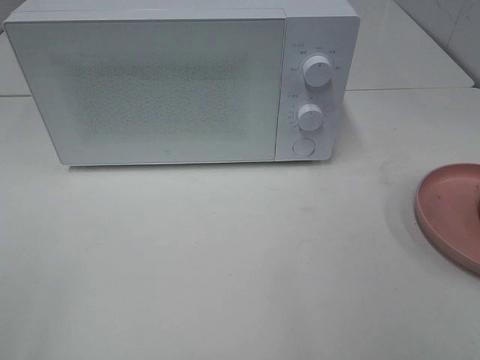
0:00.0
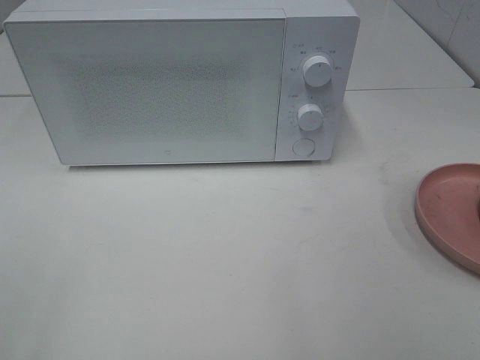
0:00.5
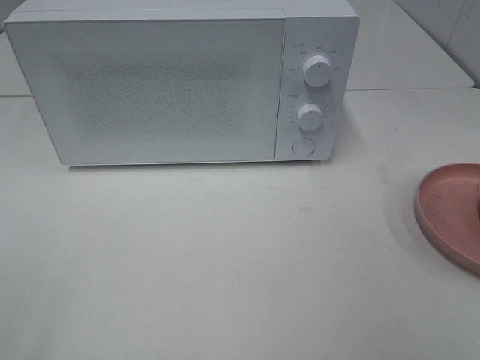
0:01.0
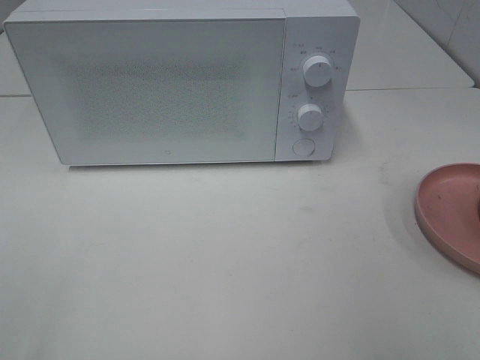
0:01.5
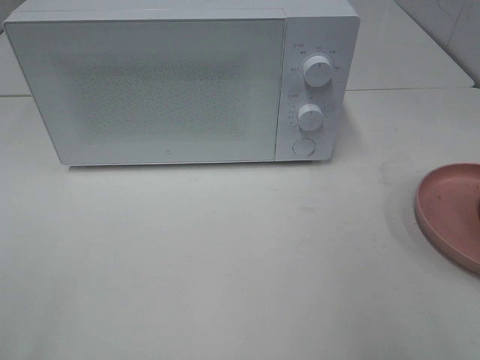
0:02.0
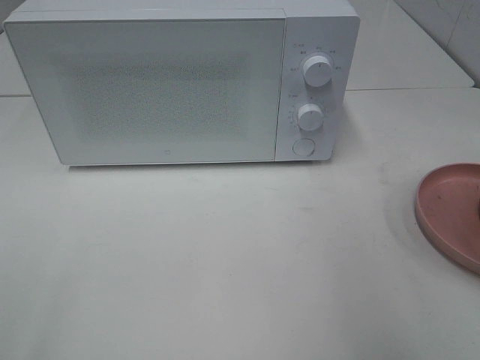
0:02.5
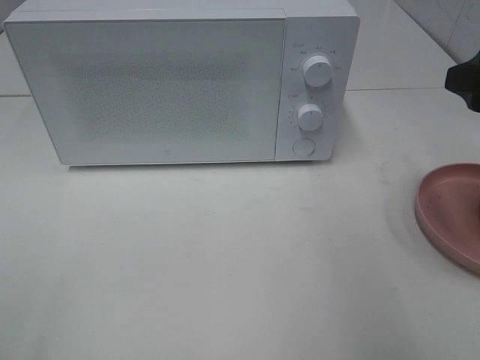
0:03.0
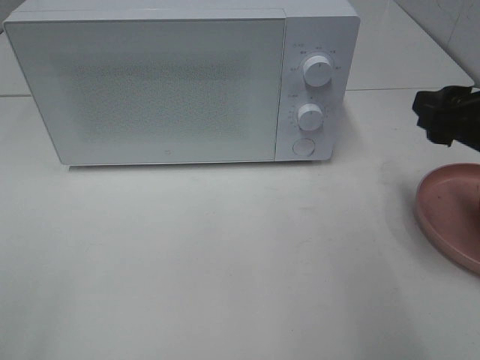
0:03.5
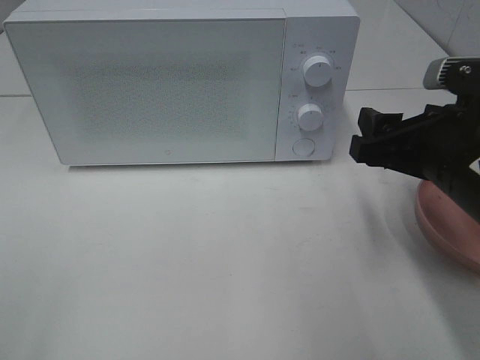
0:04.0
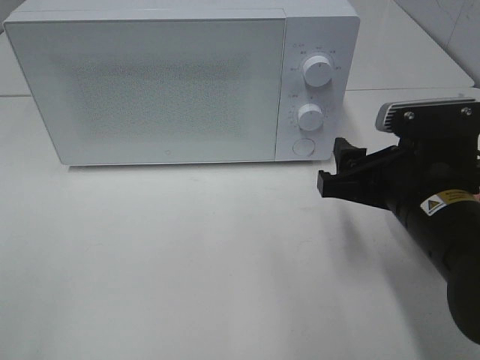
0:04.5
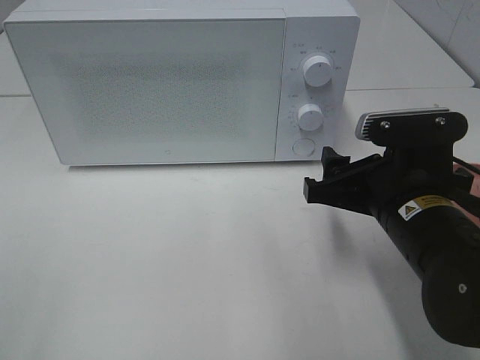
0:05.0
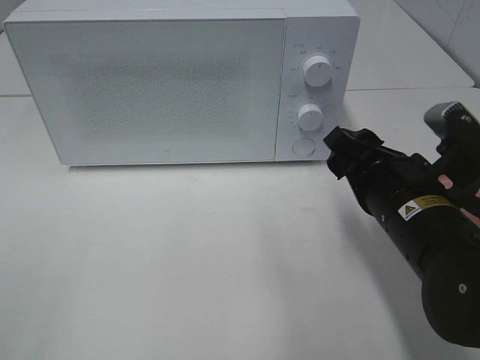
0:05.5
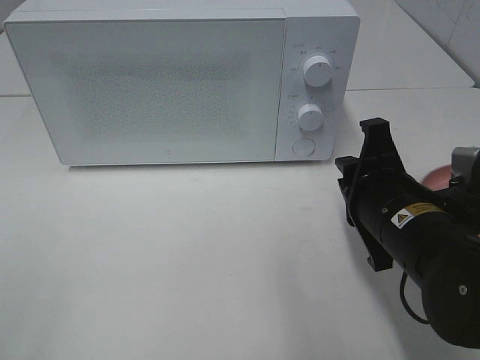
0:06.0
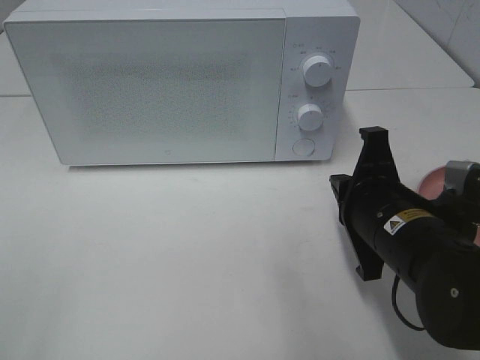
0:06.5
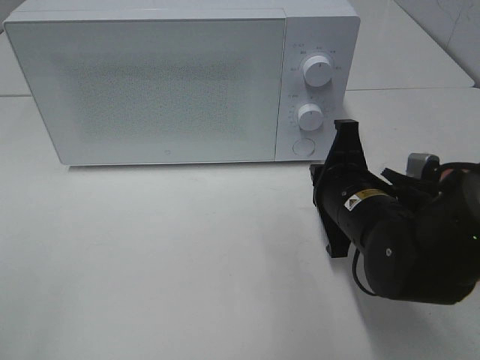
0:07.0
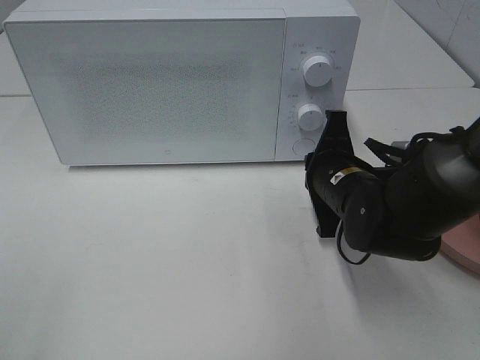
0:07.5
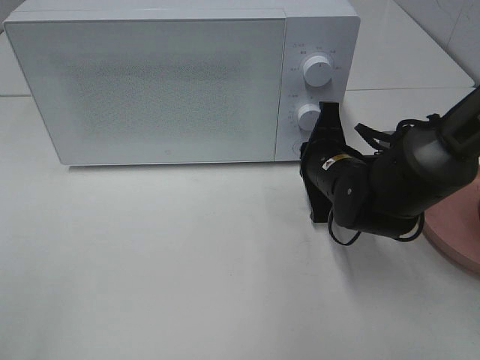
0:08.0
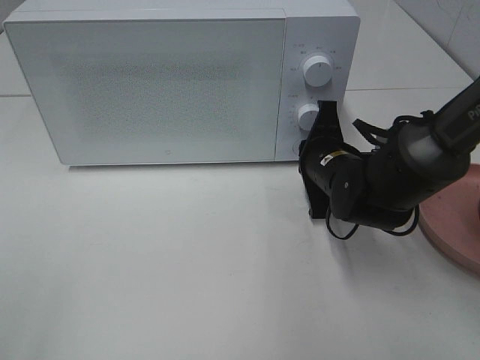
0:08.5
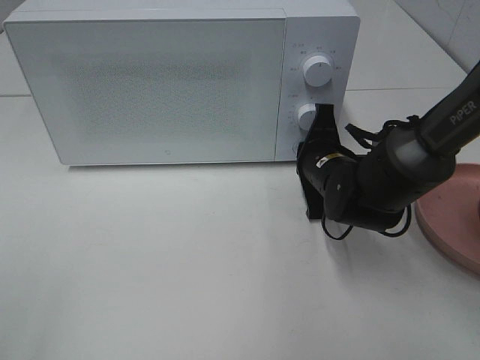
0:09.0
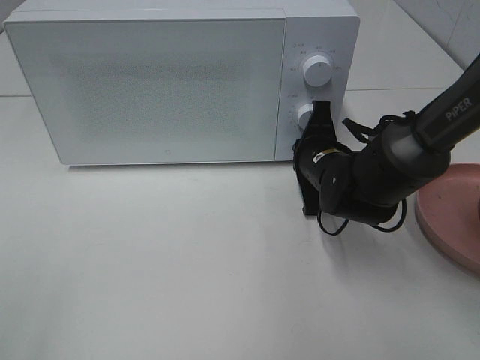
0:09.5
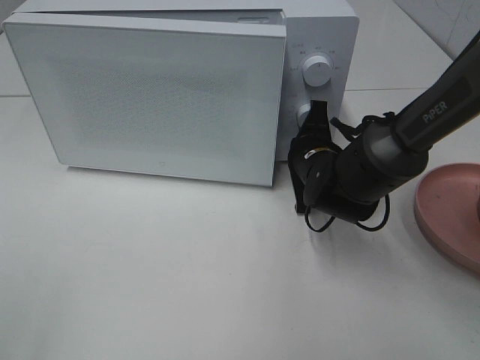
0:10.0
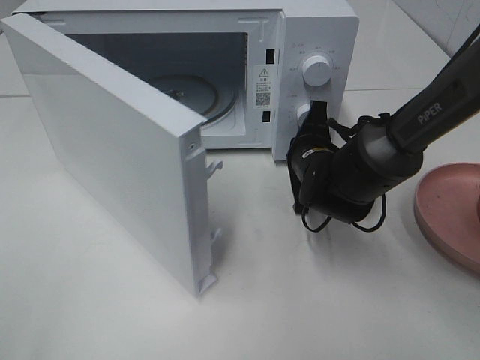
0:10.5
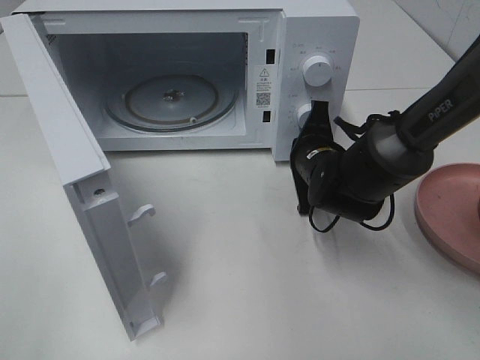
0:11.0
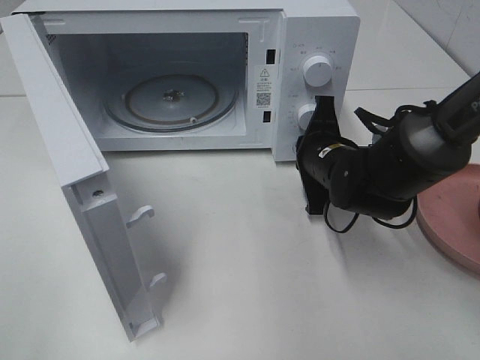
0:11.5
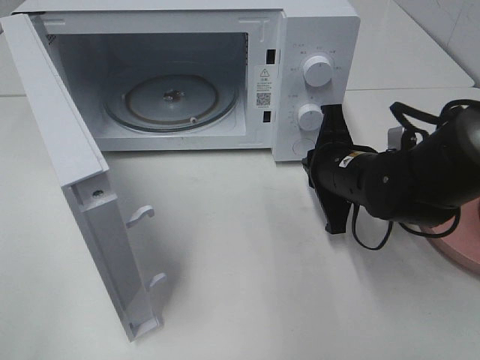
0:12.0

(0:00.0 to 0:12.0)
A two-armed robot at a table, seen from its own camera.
Task of the whole recording: Heat the burger.
Step, 0:00.0 - 0:11.5: Right hand: press the switch.
0:02.0 - 0:04.0: The right gripper heads downward, forward and to the left, covering approximately 20 cm.
0:04.0 - 0:06.0: The right gripper travels downward by approximately 5 cm, and closes up.
0:06.0 - 0:08.0: The right gripper moves forward, roughly 10 cm.
0:08.0 - 0:10.0: The grippers make only small movements.
0:10.0 - 0:12.0: The right gripper heads backward, covering approximately 5 cm.

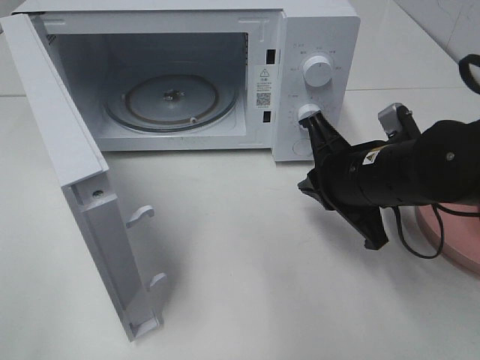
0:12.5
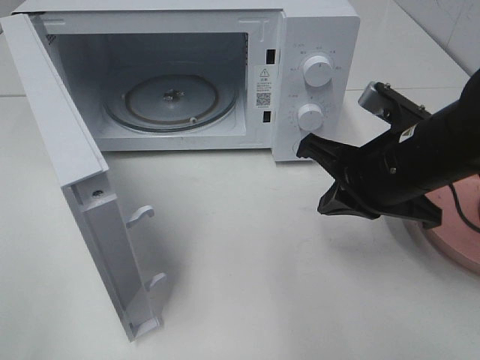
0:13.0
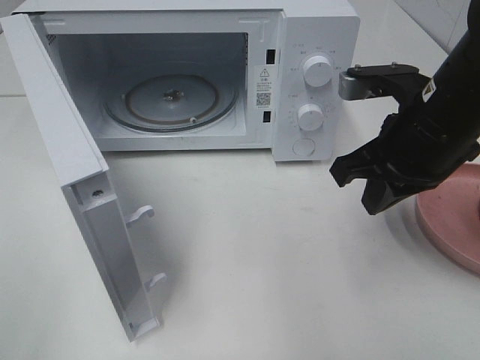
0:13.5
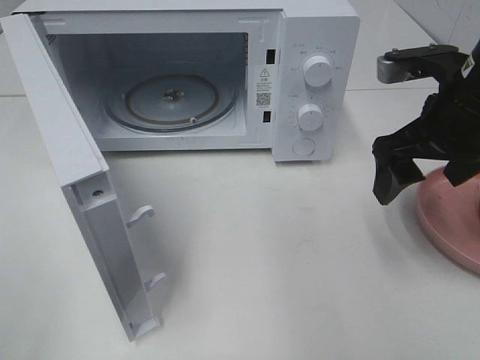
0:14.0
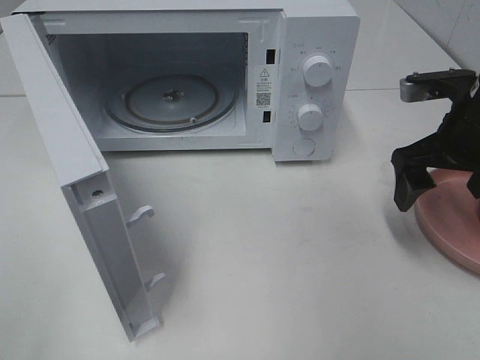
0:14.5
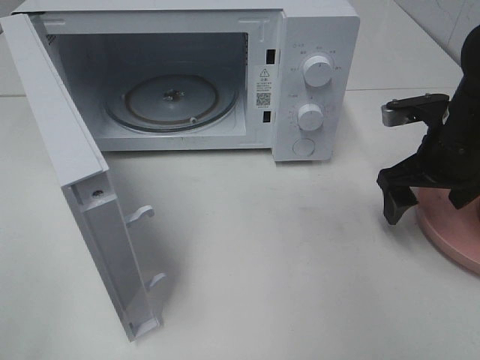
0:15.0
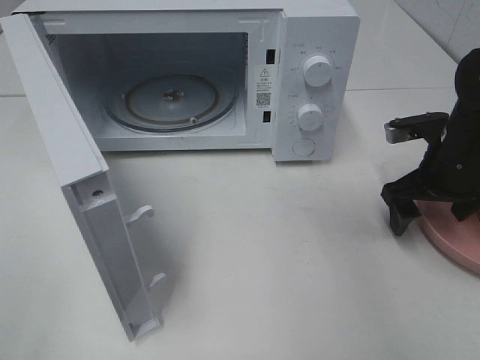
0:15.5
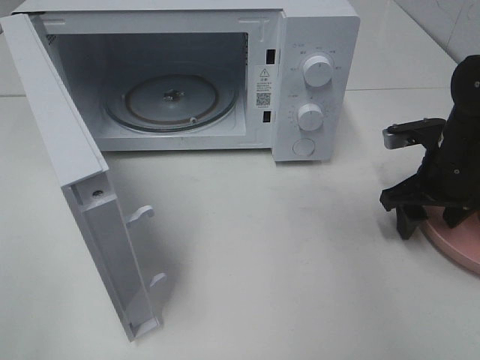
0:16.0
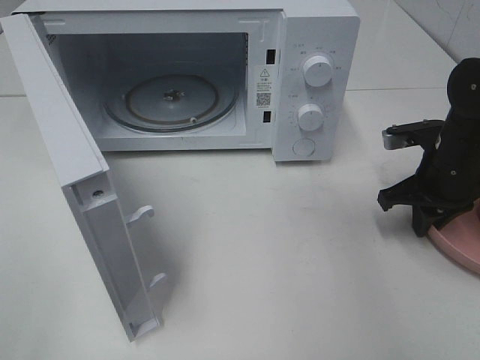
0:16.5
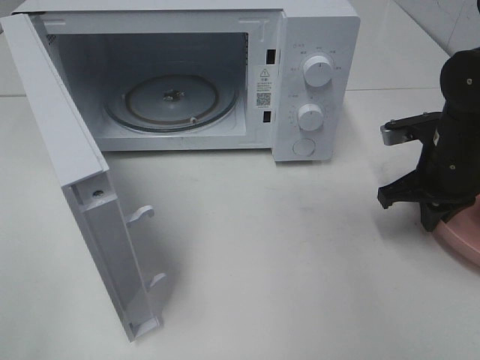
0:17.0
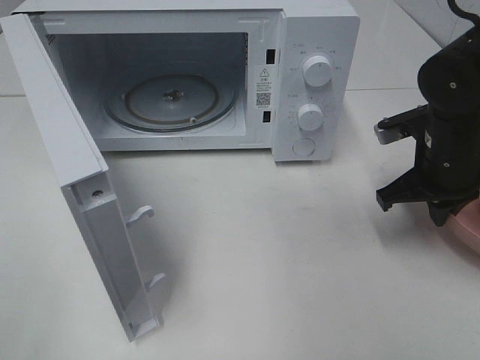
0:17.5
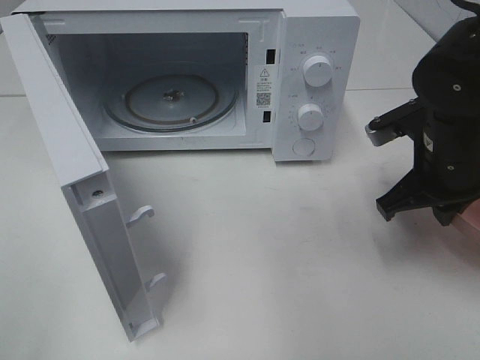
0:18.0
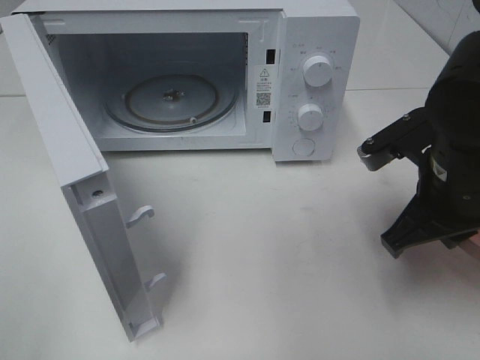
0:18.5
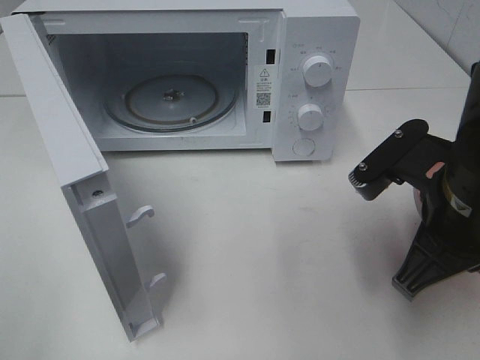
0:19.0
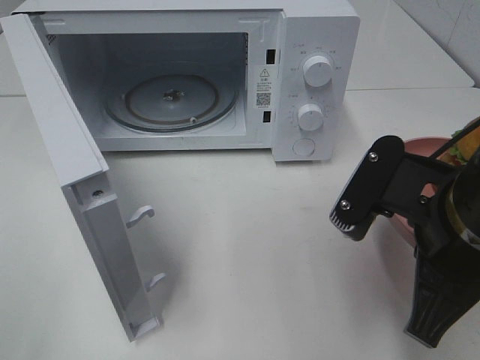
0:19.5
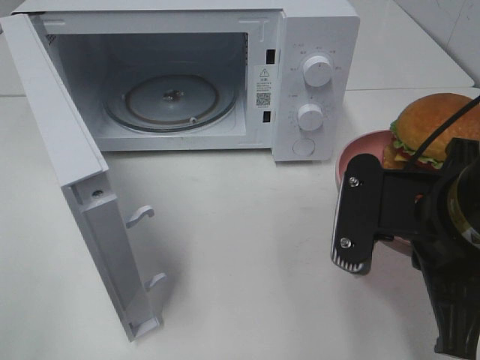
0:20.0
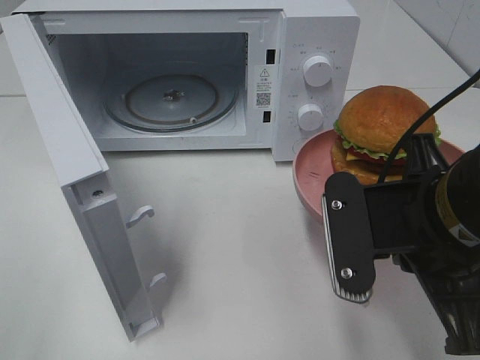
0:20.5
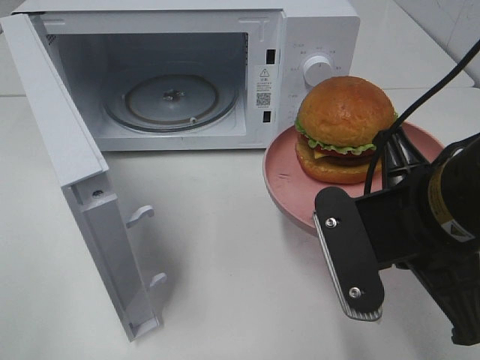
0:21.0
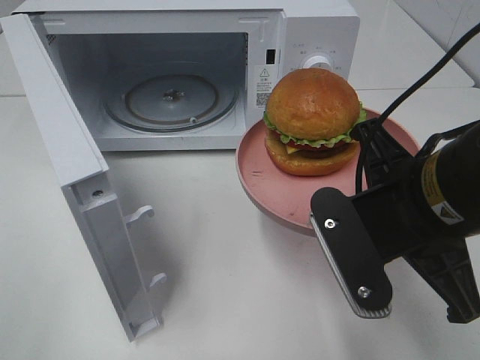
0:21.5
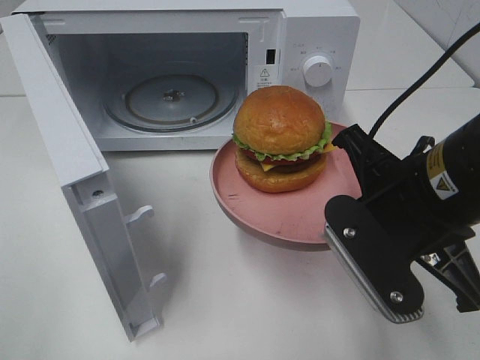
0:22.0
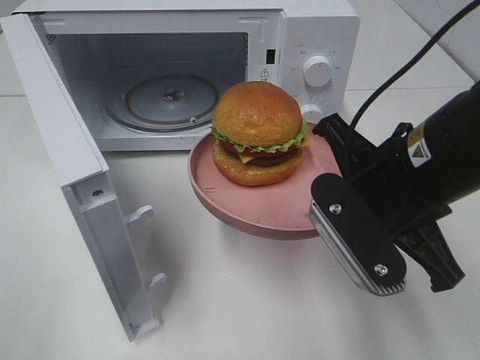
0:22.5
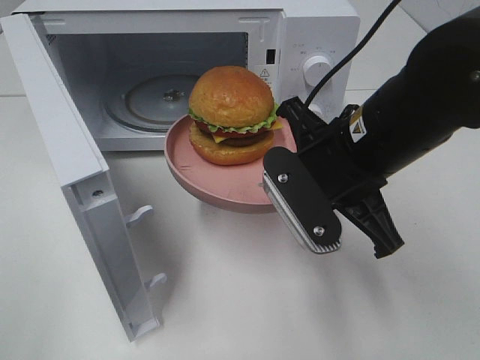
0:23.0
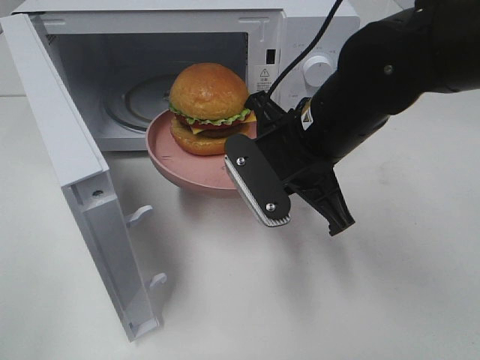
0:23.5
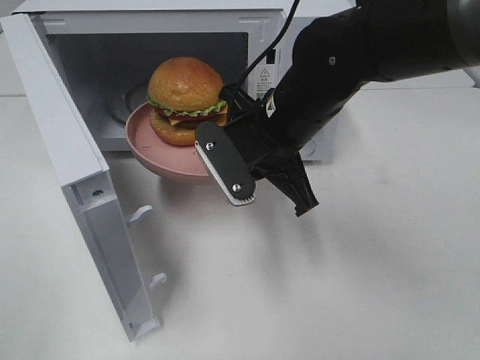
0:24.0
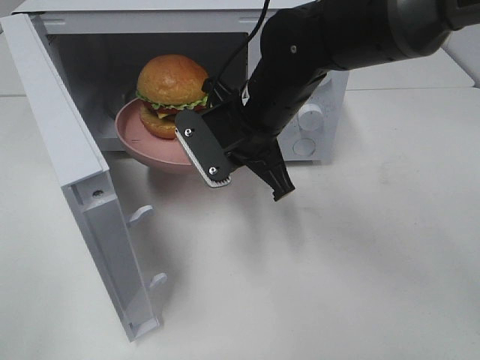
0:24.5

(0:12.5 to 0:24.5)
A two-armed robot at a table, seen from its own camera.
Task of the whole recording: Heat the burger.
Step, 0:12.5 - 0:17.0: Right hand: grab the plate with the hamburger.
0:12.5 - 0:14.5: The right gripper shifts roughly 10 cm to the right, and opens up.
0:14.5 - 0:16.5: The right gripper moves downward, some 10 cm, and closes.
0:16.5 - 0:18.5: The right gripper travels backward, to the left and upward by approximately 15 cm.
0:18.5 - 0:20.5: The right gripper shifts about 10 cm backward and to the left.
0:22.5 - 0:24.5: The right gripper shifts roughly 15 cm forward and to the left.

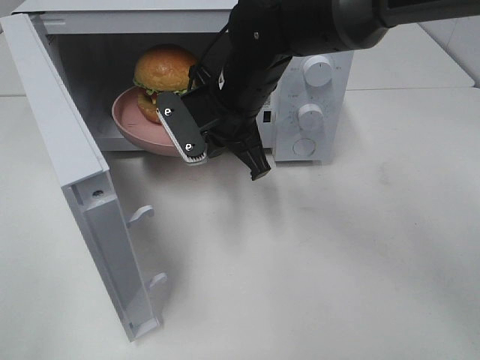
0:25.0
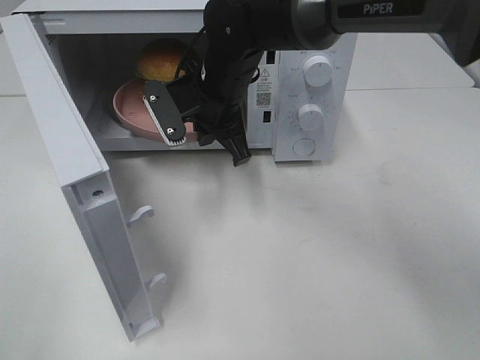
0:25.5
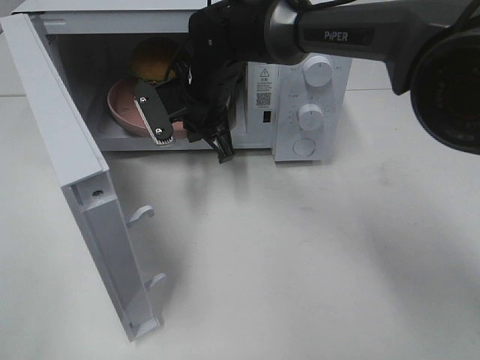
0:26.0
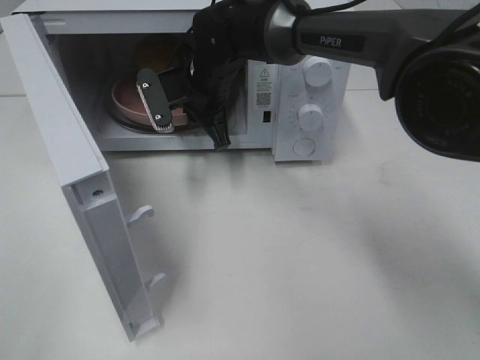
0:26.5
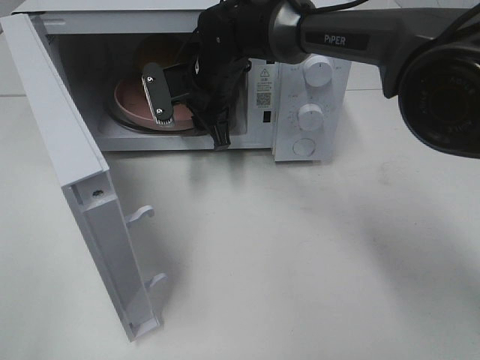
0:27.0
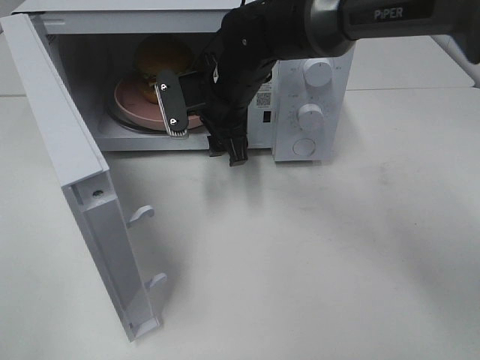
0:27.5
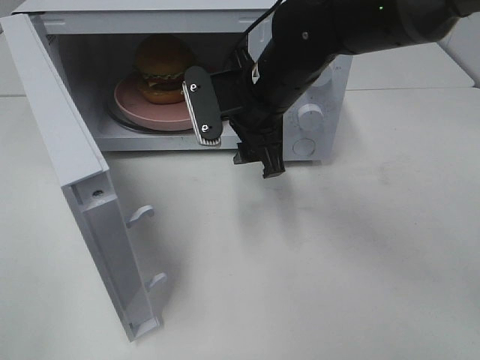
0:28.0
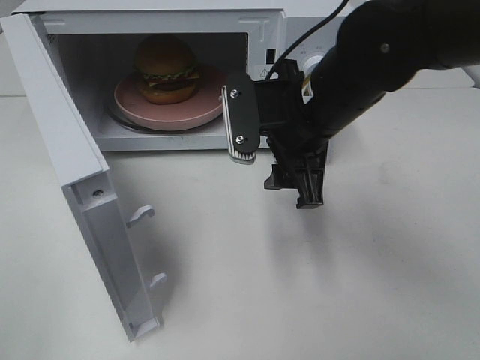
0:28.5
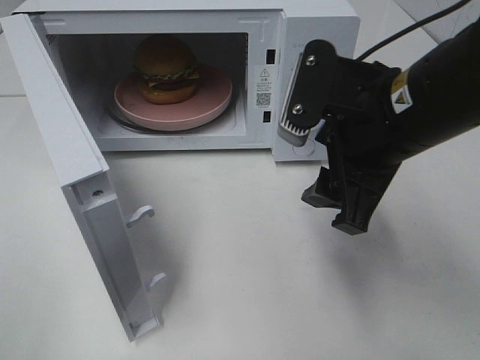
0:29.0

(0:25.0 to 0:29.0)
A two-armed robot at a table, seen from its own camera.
Task of the whole recording: Heat the burger.
Step, 0:25.0 - 0:27.0: Right hand: place the plate in the microwave.
0:25.0 - 0:27.0: The right gripper travels forward by some 10 cm, and opens.
0:27.0 - 0:29.0: The right gripper heads backward and to the right, covering approximately 25 cm.
